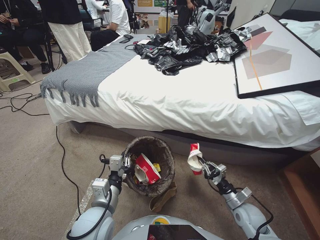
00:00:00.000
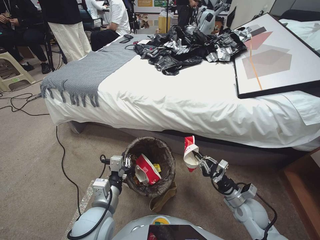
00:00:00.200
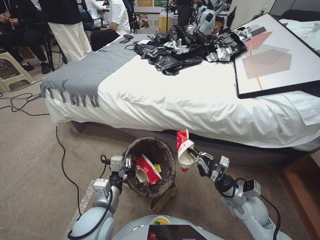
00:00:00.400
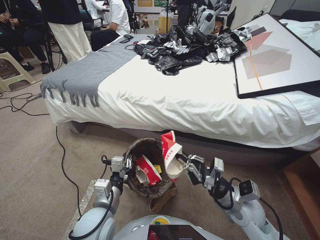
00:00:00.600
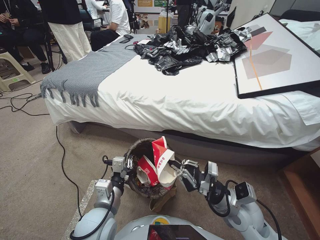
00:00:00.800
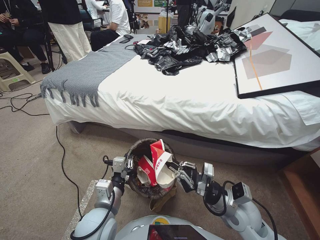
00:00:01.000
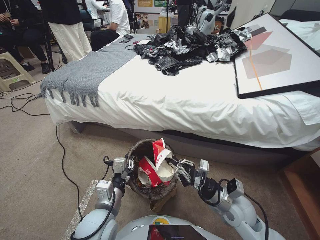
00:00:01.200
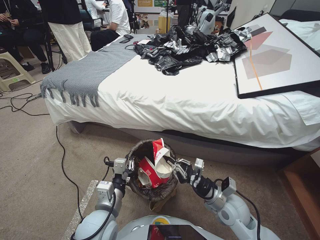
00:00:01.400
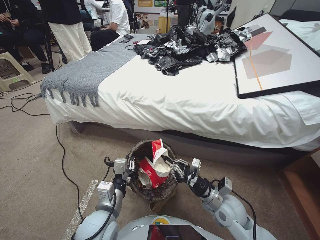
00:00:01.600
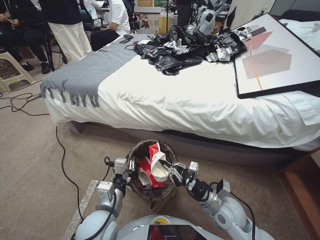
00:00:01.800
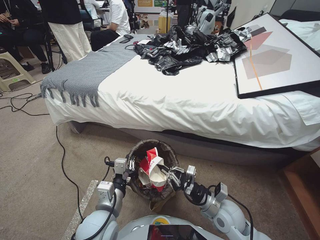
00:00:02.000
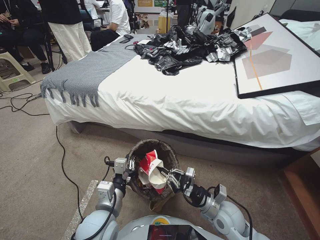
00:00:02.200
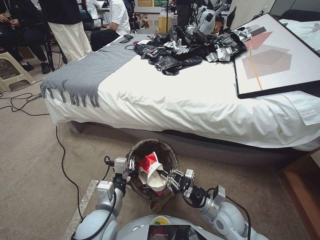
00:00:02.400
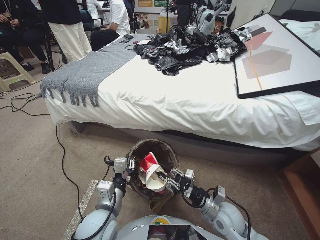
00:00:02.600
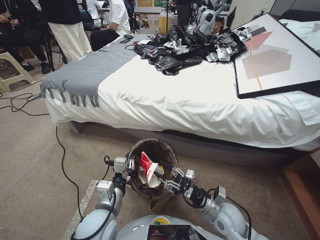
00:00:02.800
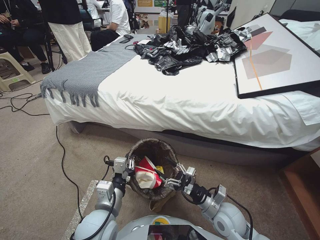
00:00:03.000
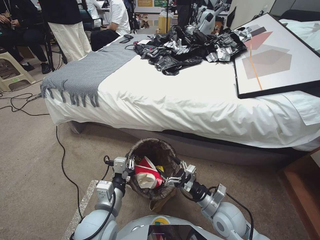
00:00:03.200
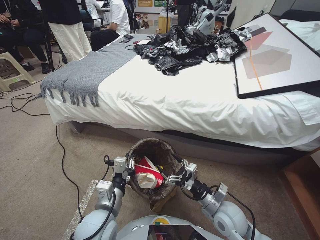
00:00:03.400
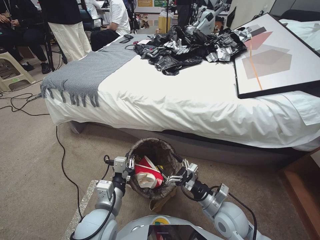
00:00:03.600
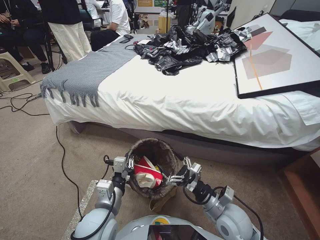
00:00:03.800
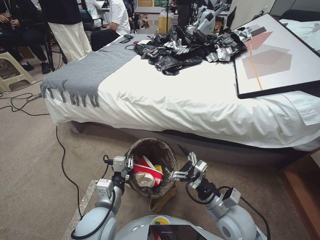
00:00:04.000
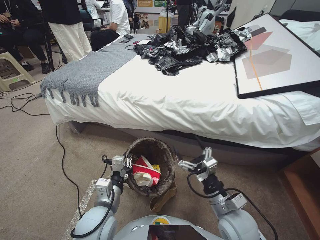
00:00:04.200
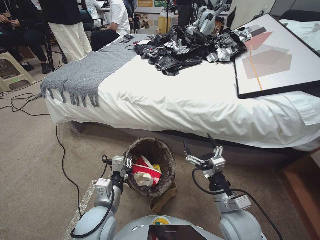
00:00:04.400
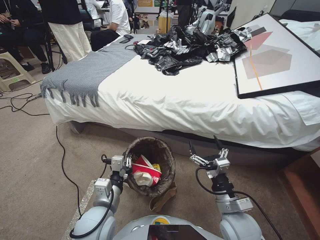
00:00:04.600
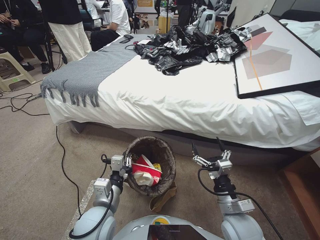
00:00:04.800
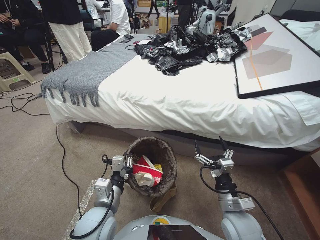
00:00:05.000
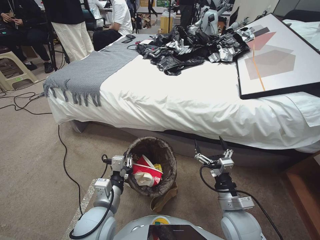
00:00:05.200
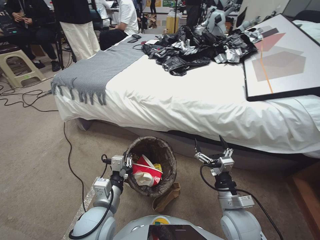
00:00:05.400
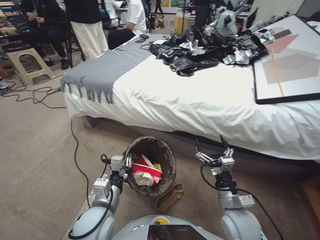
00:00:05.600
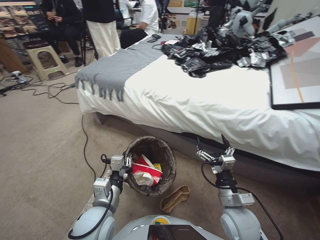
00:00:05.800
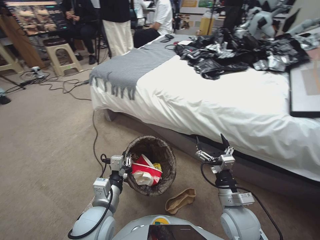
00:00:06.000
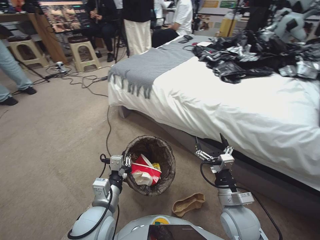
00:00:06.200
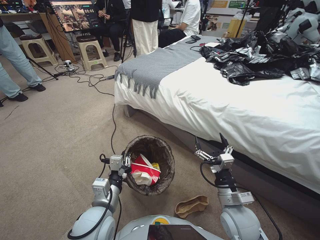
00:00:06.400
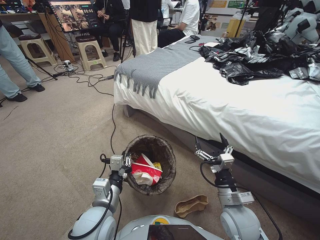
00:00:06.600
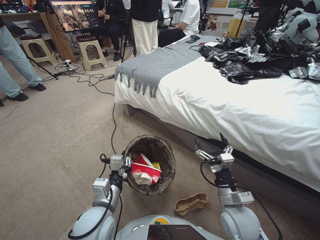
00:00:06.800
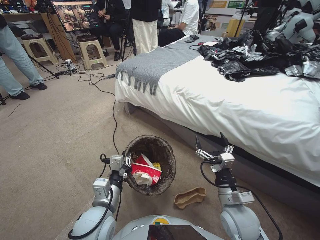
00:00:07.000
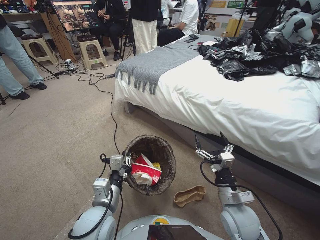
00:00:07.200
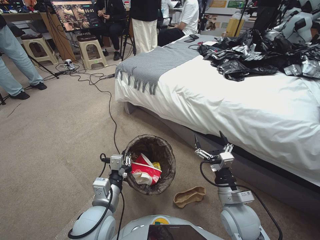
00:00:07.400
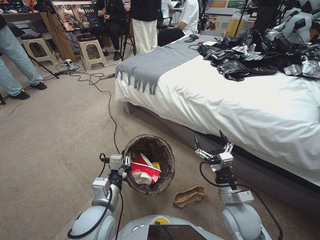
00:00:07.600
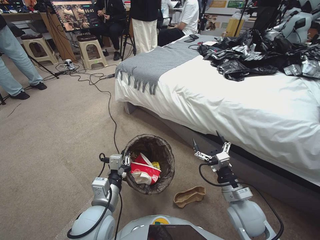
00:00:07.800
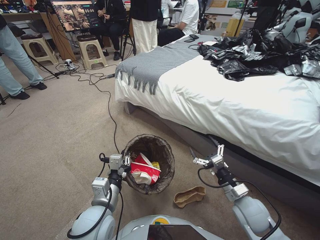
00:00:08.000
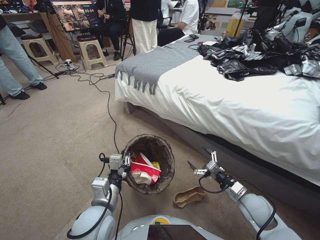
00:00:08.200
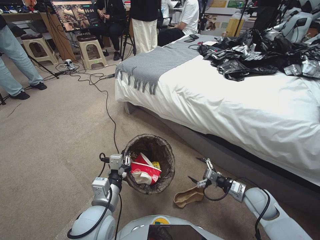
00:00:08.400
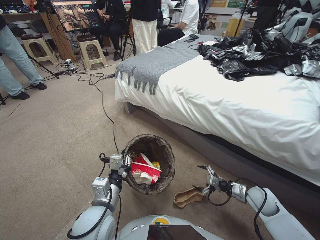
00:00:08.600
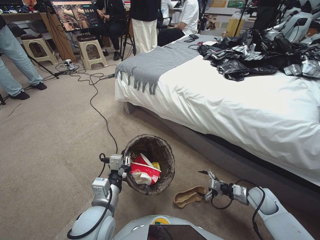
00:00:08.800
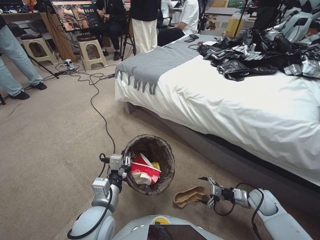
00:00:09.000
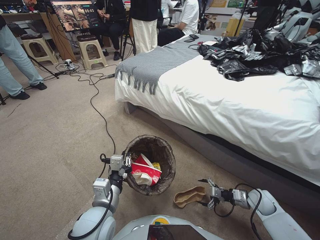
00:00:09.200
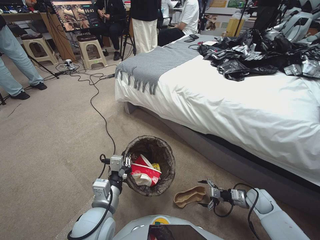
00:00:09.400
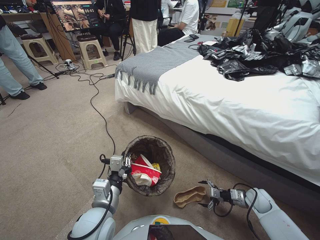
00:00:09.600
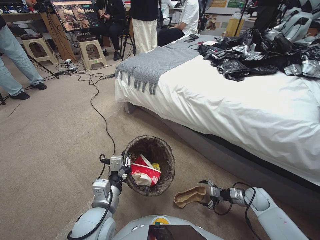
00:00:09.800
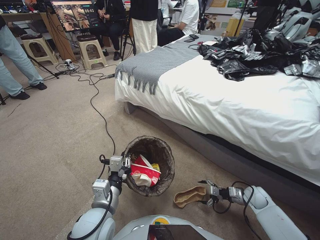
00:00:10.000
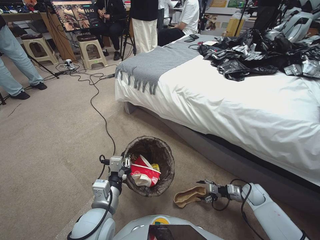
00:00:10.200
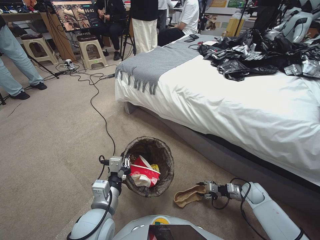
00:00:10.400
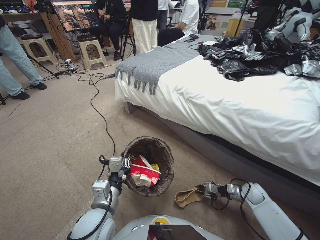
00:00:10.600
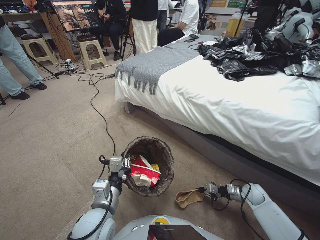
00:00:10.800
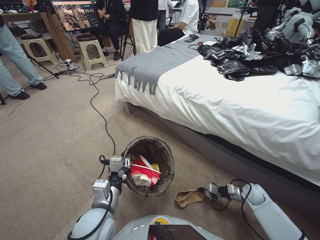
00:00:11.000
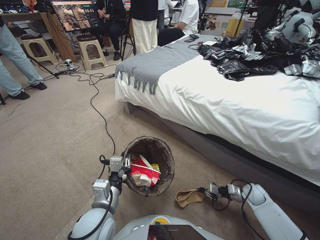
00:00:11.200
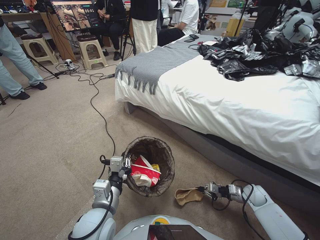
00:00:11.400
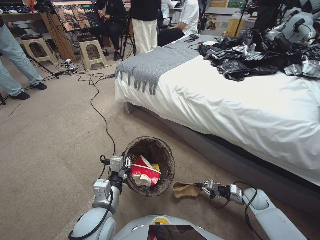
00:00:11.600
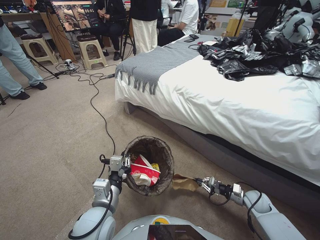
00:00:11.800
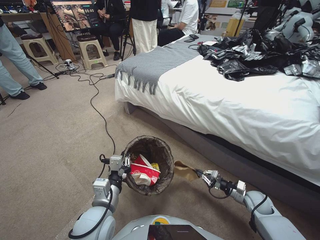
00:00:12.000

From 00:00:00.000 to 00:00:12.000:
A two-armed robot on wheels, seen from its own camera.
Task of the whole recording: Pick up the trash bin, then pick up the garbage from the floor and place it into the trash bin.
From 00:00:00.000 to 00:00:01.600: The right gripper heads upward and to the left, covering about 20 cm.
From 00:00:01.600 to 00:00:03.000: The right gripper moves about 5 cm, and opens up.
From 00:00:03.000 to 00:00:04.400: The right gripper shifts roughly 5 cm upward.
From 00:00:07.600 to 00:00:09.000: The right gripper moves to the right and downward, roughly 20 cm.
From 00:00:09.000 to 00:00:10.400: The right gripper goes about 5 cm downward, and closes.
From 00:00:10.400 to 00:00:12.000: The right gripper closes its fingers.

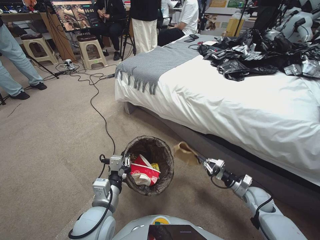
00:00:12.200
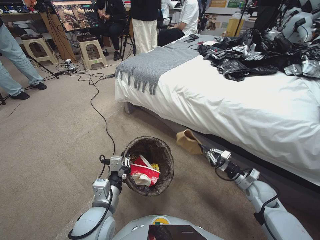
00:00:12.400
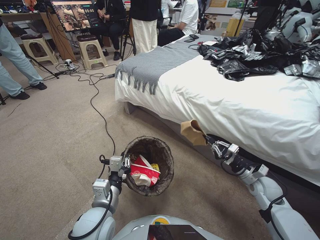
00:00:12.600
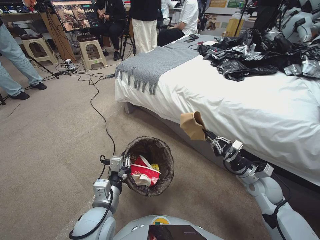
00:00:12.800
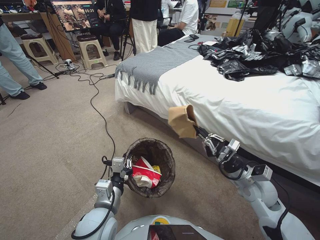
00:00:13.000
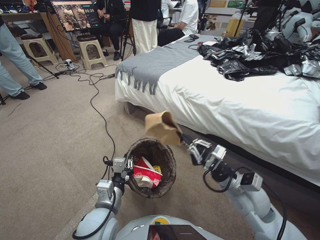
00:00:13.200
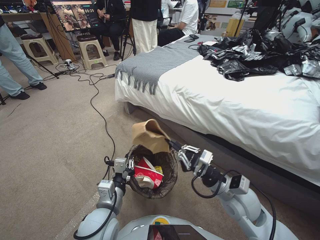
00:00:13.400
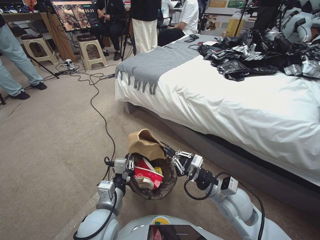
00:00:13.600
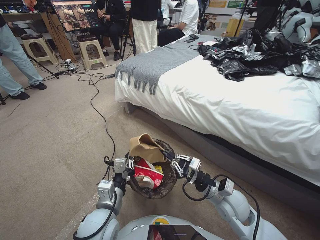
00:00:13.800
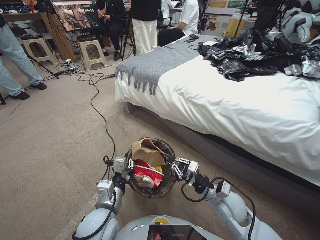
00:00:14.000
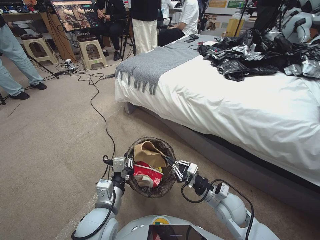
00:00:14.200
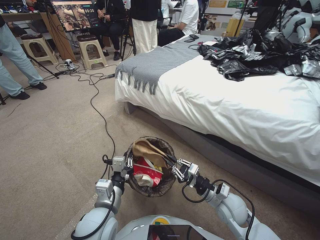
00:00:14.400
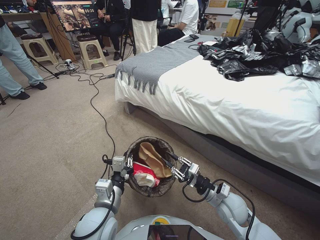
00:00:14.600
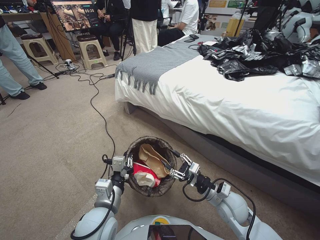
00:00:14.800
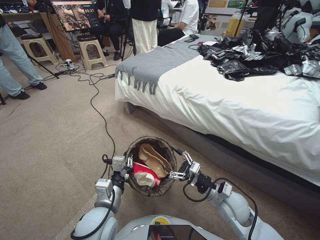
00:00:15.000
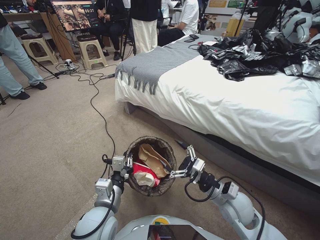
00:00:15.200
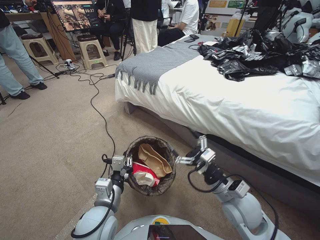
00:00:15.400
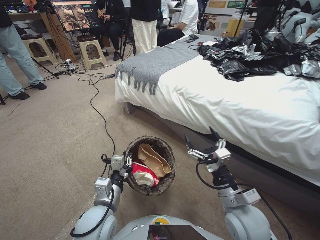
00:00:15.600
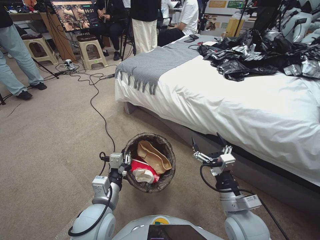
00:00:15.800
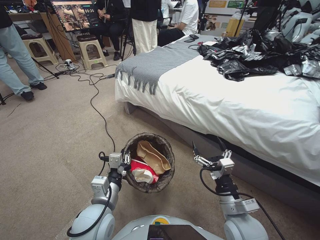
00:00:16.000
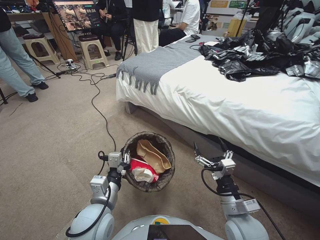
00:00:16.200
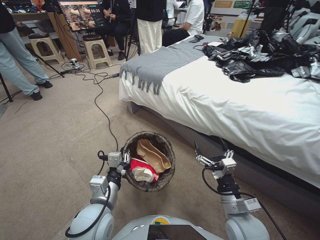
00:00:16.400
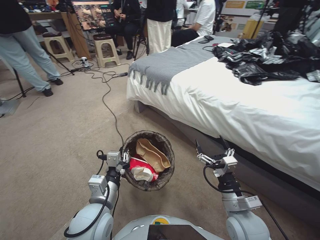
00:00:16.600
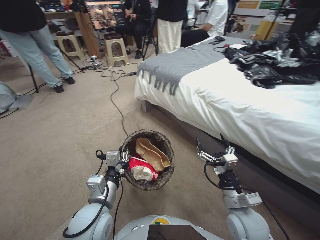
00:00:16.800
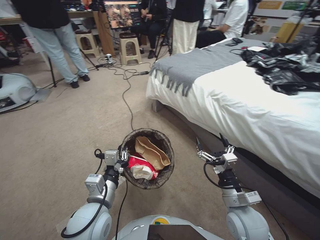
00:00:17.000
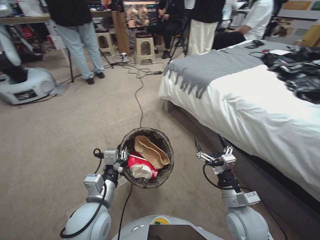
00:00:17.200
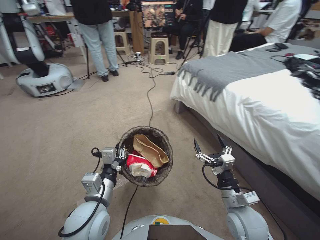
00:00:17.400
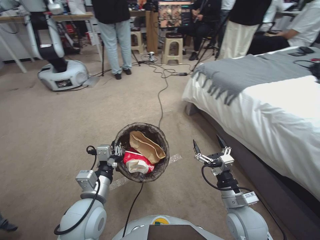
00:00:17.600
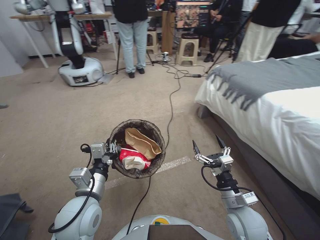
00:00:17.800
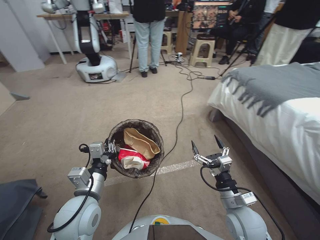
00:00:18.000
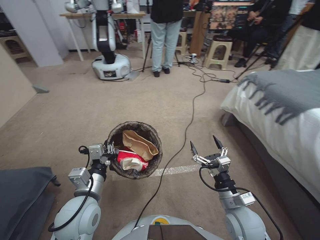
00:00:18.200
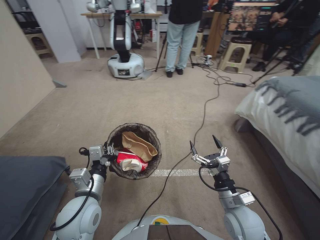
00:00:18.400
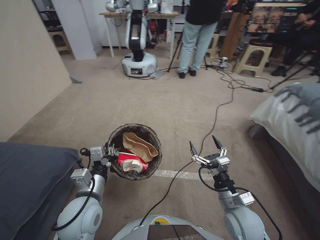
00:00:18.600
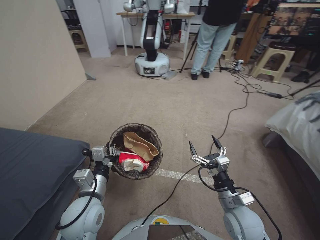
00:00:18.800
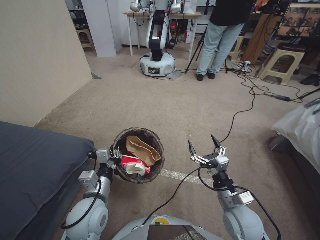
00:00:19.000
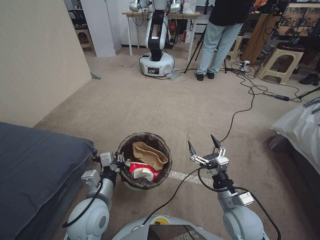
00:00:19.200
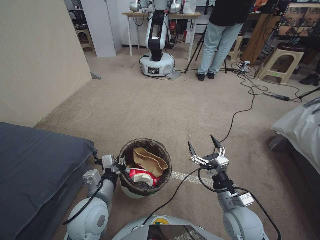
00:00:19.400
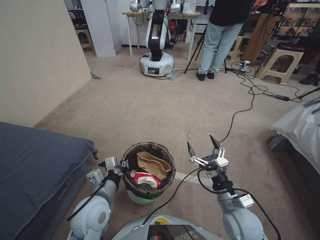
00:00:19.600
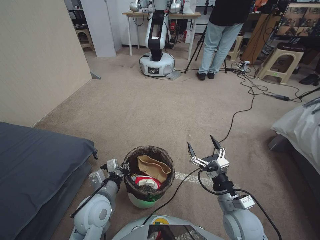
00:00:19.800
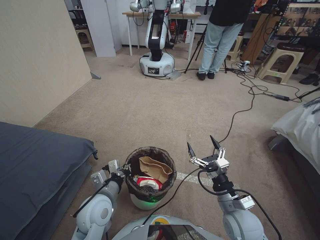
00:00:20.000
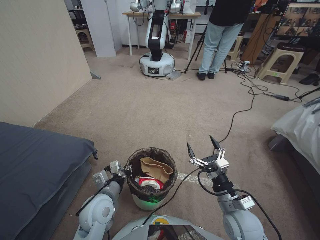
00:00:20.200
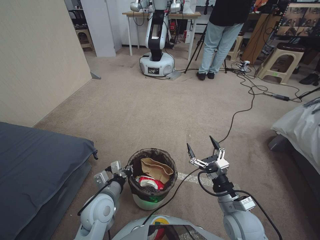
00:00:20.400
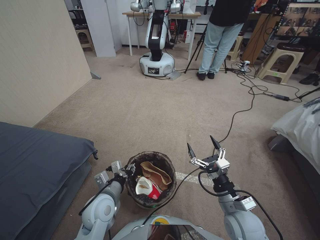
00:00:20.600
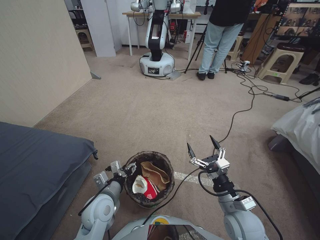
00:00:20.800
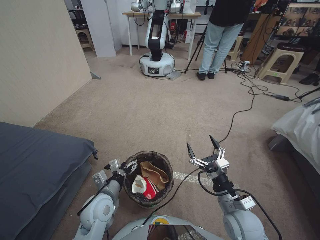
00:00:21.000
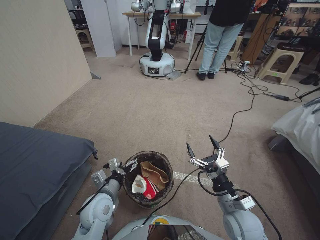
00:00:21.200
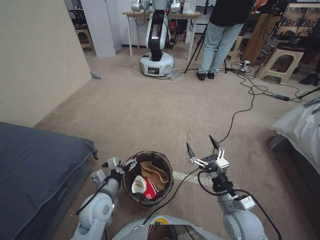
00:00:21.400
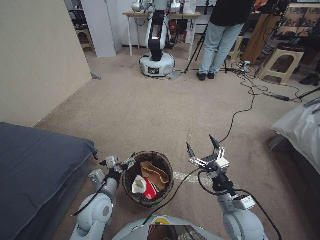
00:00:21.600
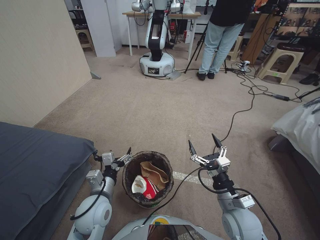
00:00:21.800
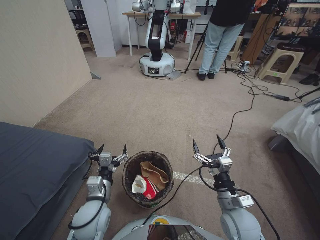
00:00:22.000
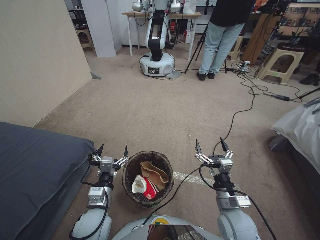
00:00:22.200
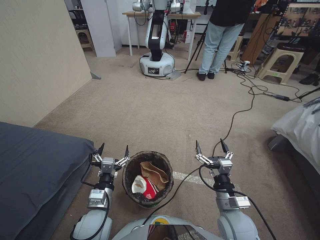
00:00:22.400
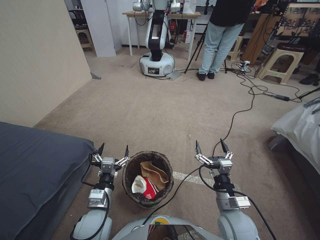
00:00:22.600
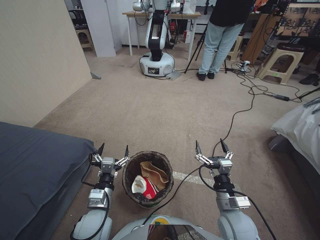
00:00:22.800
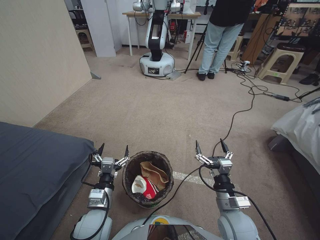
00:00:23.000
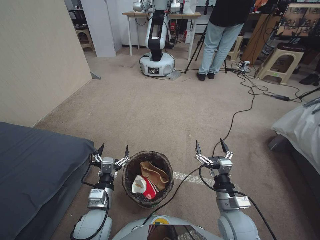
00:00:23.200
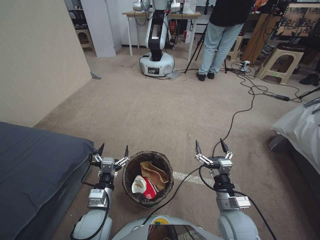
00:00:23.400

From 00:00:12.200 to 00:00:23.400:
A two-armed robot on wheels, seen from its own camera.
Task of the whole recording: Pick up the trash bin, then pick up the garbage from the floor and place it into the trash bin.
From 00:00:12.200 to 00:00:13.800: The right gripper travels to the left and upward by roughly 25 cm.
From 00:00:13.800 to 00:00:15.400: The right gripper opens.
From 00:00:15.400 to 00:00:17.000: The right gripper heads backward, covering approximately 5 cm.
From 00:00:18.600 to 00:00:20.200: The left gripper heads downward, covering about 5 cm.
From 00:00:20.200 to 00:00:21.800: The left gripper opens.
